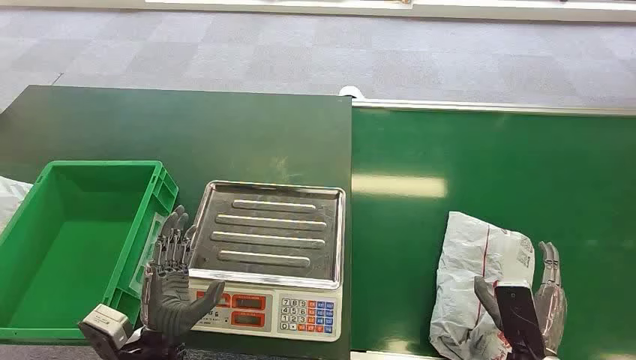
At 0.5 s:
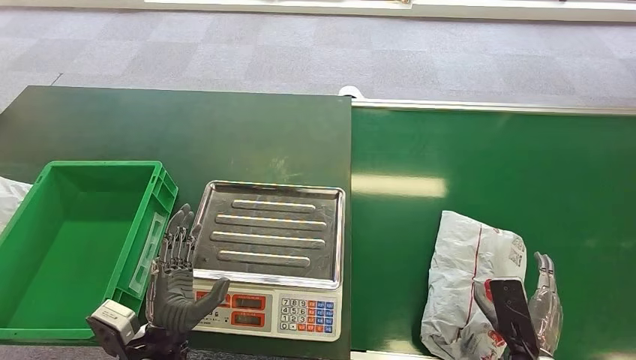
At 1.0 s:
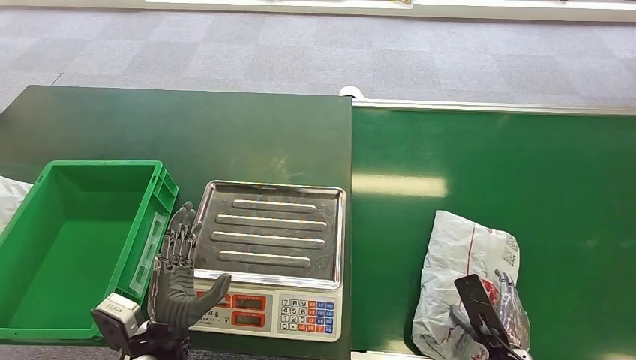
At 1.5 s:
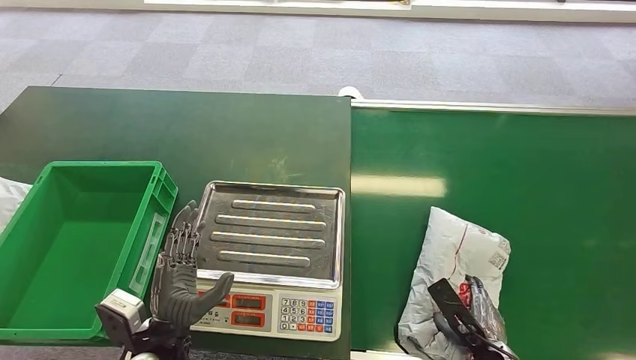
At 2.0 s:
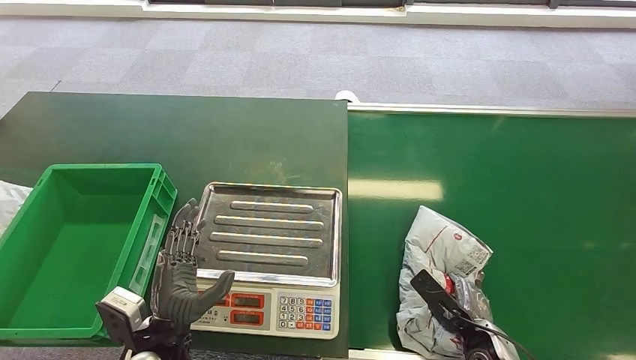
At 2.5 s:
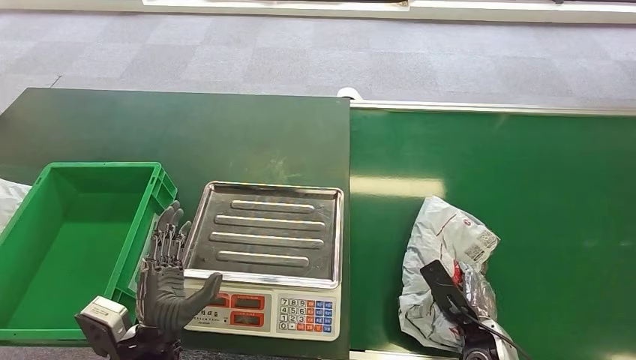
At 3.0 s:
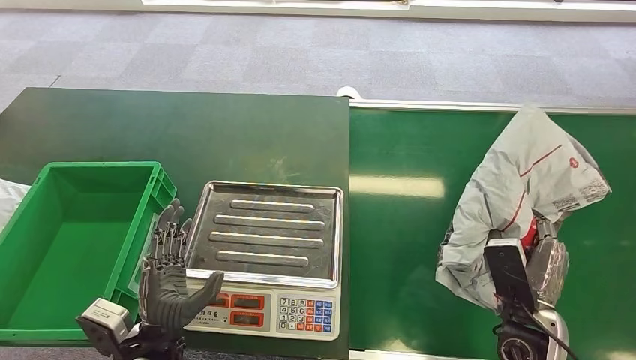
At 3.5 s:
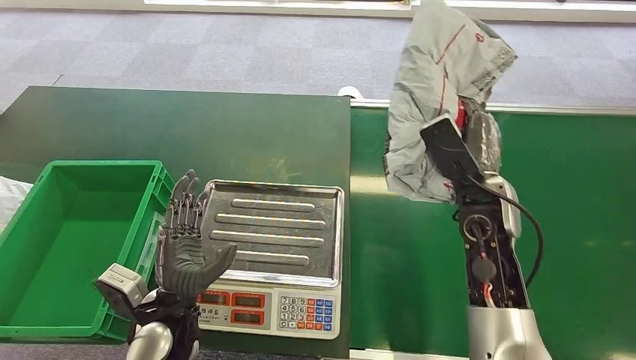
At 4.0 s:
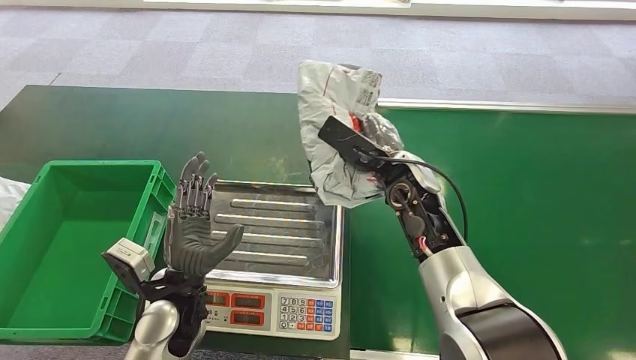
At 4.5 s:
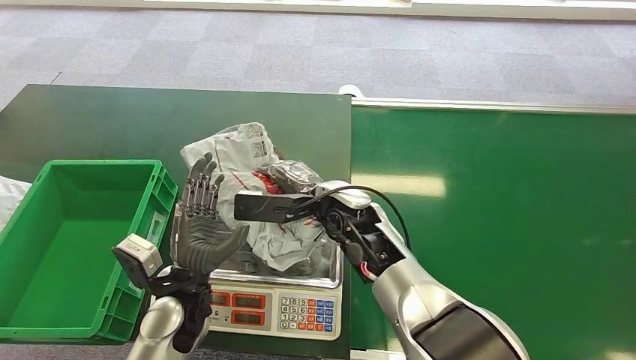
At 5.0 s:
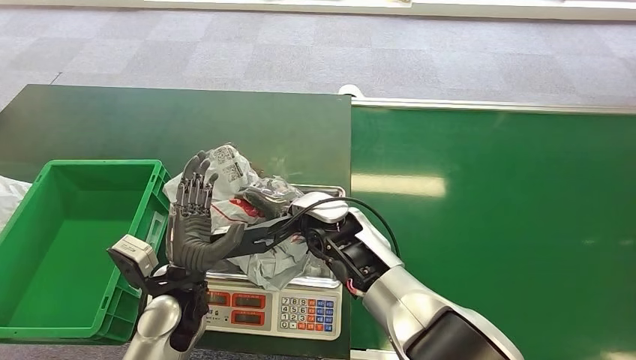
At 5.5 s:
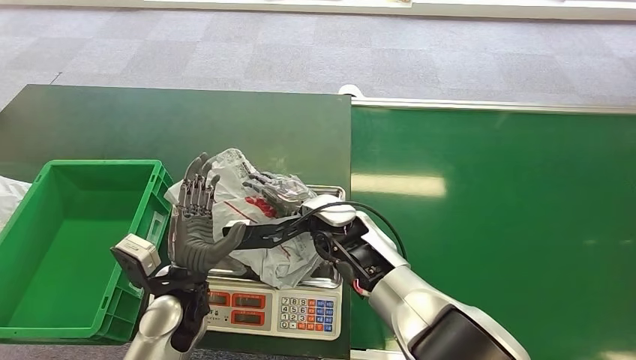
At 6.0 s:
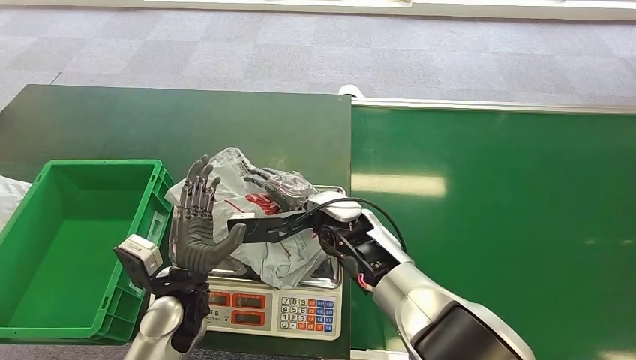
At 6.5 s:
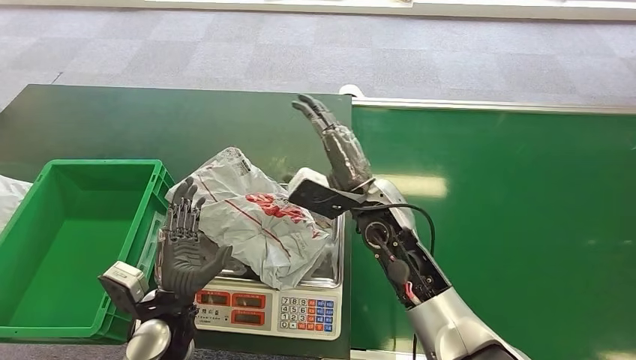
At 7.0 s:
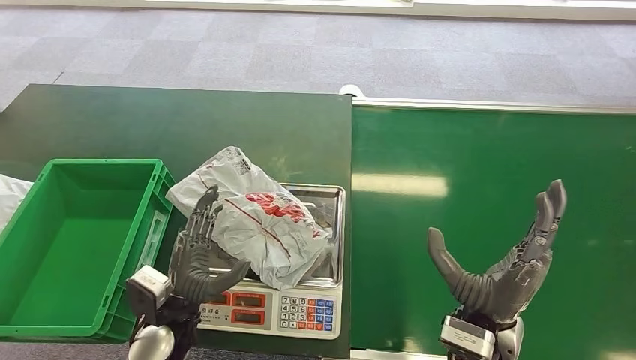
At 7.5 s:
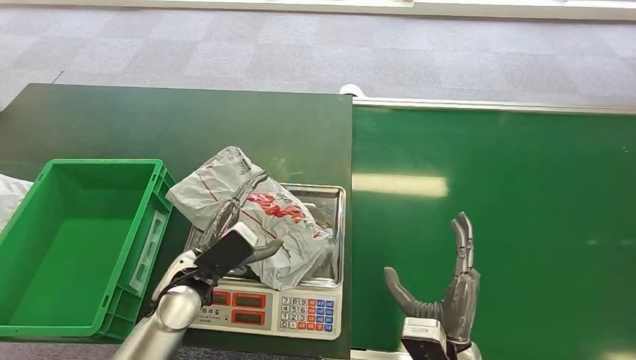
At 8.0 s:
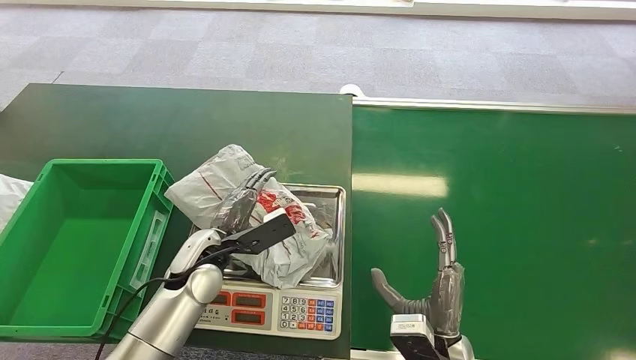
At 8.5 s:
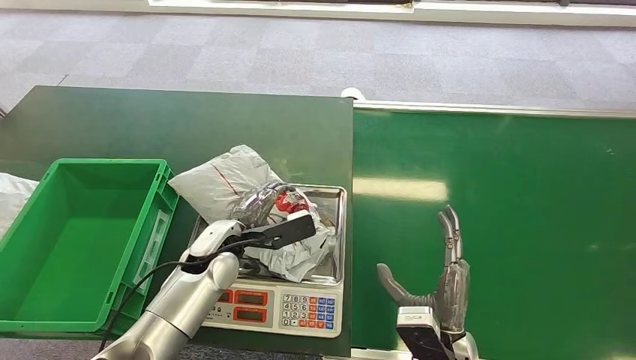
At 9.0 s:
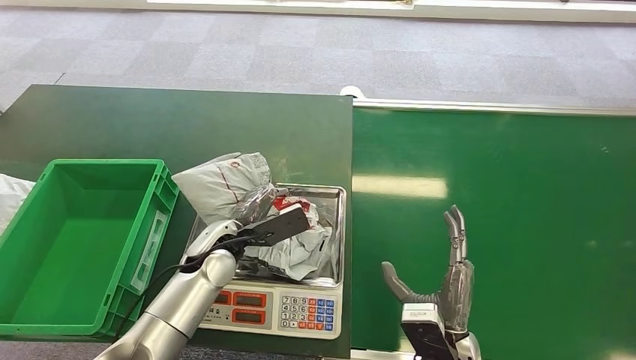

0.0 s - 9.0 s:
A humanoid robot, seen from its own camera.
Step, 0.0 s - 3.0 s: Pick up the package from the conveyor belt.
Step, 3.5 s - 6.5 s: Place the package onto the inbound machine.
4.5 s - 7.0 s: The left hand ends up some 5 cm from where it was, while the right hand goes some 25 cm backward and to the right.
7.0 s - 9.0 s: The left hand shifts some 10 cm forward. The right hand travels downward by roughly 5 cm.

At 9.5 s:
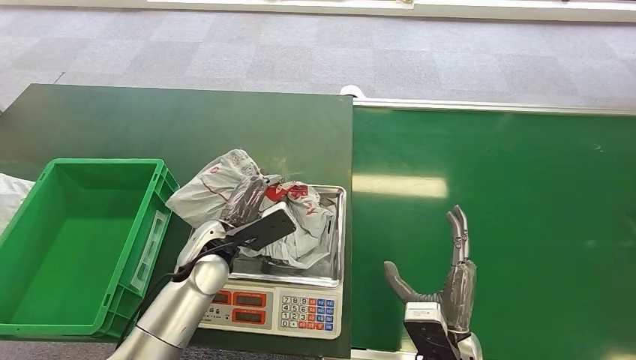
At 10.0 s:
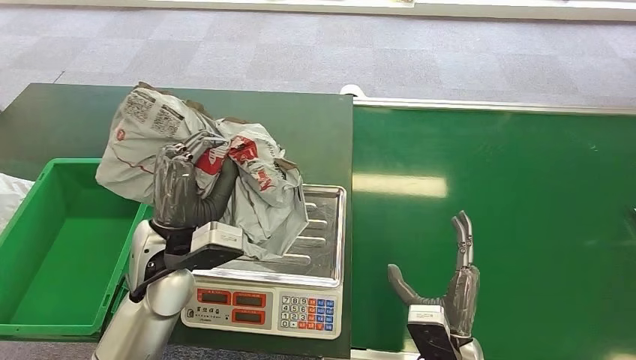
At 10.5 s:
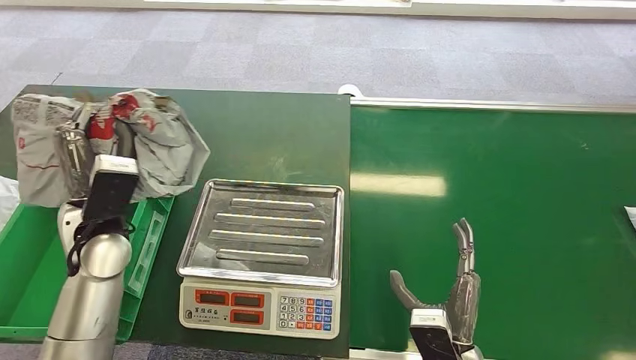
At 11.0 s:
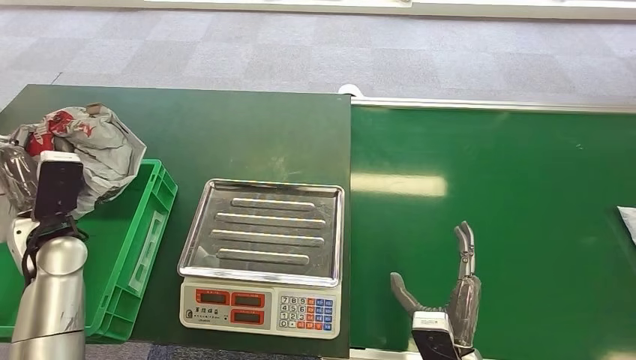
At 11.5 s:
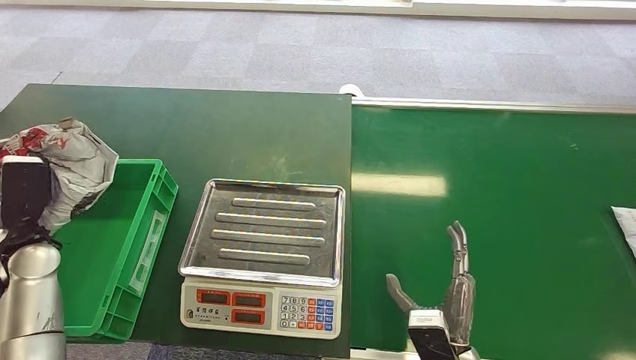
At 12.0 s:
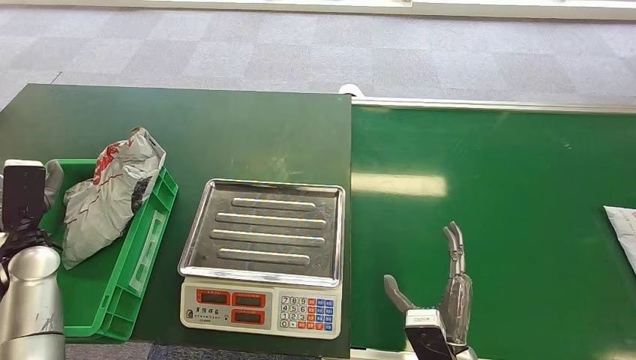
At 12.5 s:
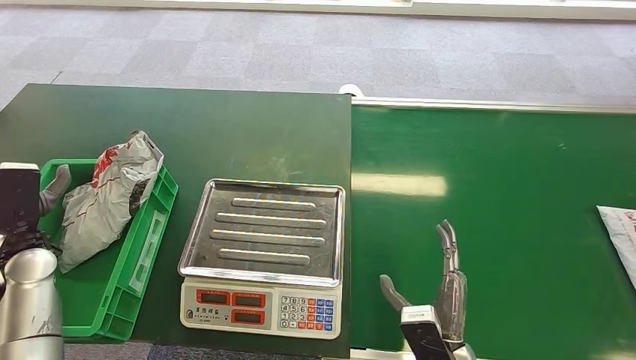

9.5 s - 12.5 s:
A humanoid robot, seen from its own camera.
Step, 10.5 s - 12.5 s: Place the package into the parcel locker.
11.0 s - 12.5 s: The left hand moves to the left, roughly 5 cm.
